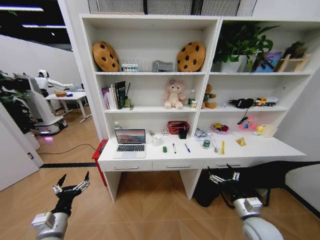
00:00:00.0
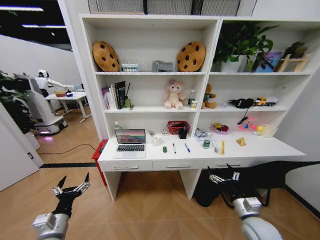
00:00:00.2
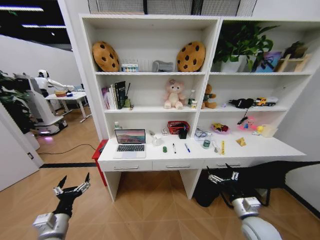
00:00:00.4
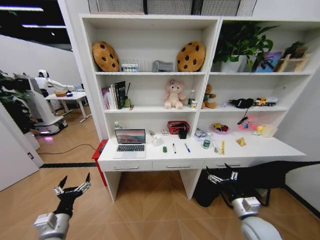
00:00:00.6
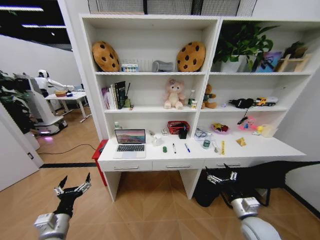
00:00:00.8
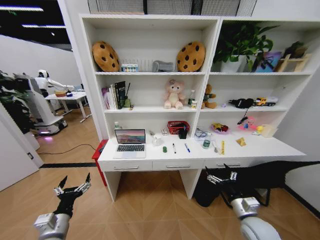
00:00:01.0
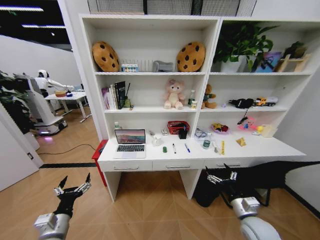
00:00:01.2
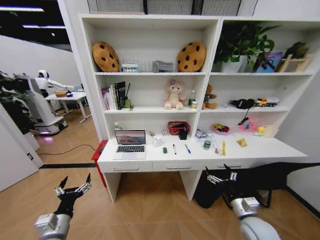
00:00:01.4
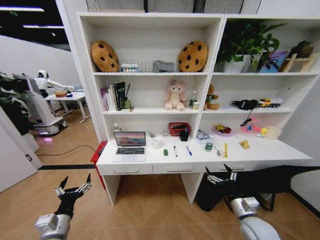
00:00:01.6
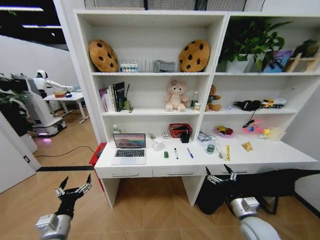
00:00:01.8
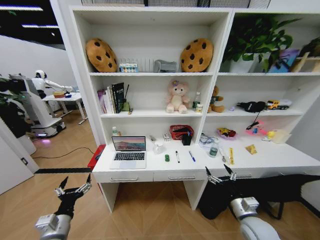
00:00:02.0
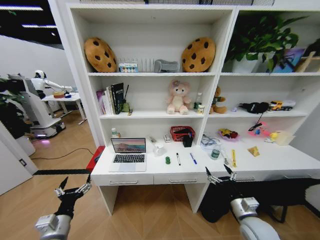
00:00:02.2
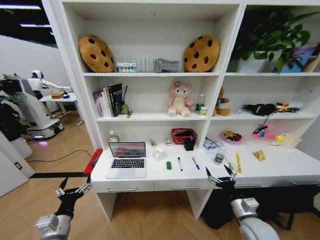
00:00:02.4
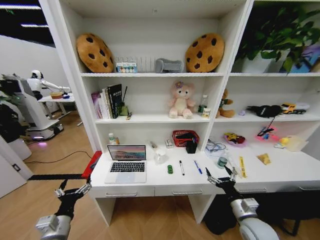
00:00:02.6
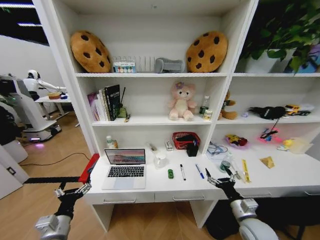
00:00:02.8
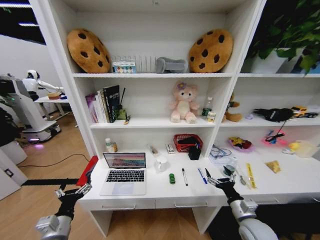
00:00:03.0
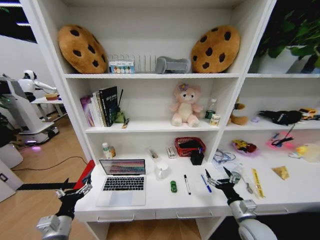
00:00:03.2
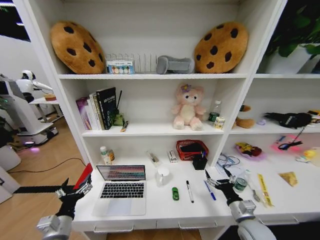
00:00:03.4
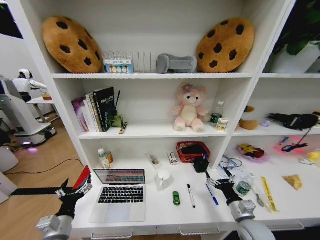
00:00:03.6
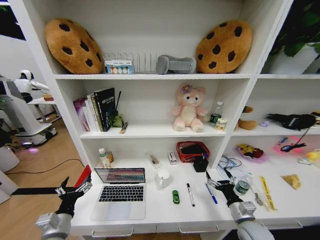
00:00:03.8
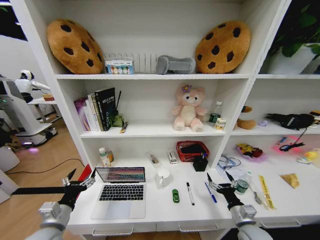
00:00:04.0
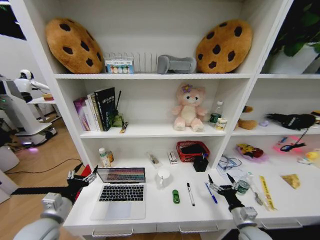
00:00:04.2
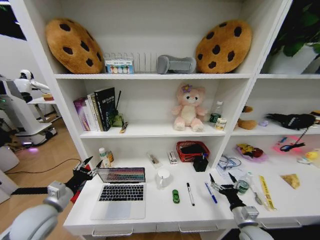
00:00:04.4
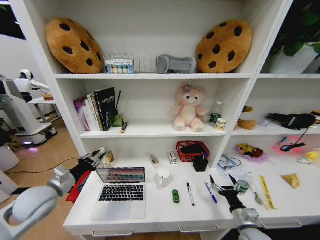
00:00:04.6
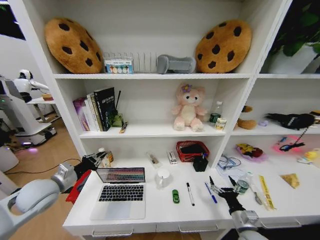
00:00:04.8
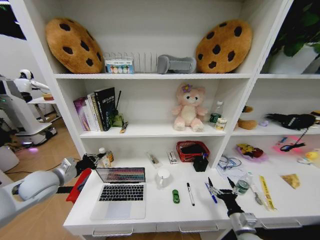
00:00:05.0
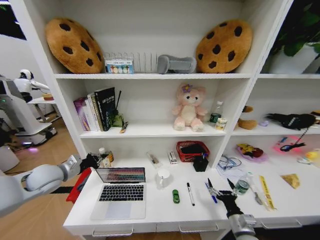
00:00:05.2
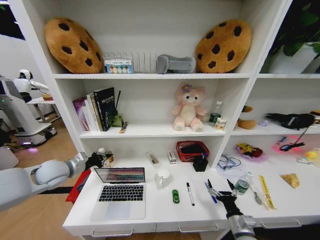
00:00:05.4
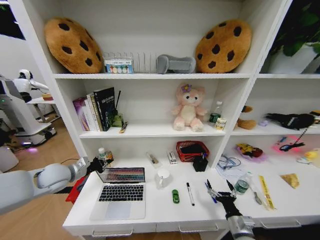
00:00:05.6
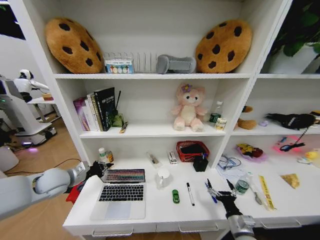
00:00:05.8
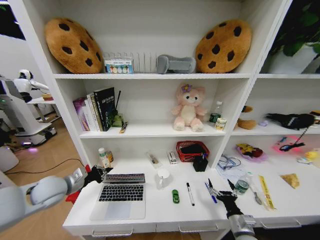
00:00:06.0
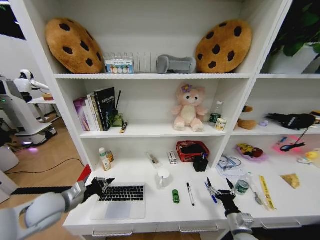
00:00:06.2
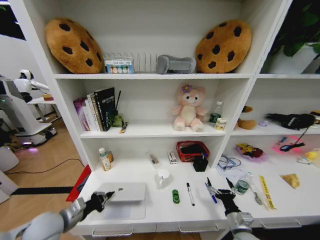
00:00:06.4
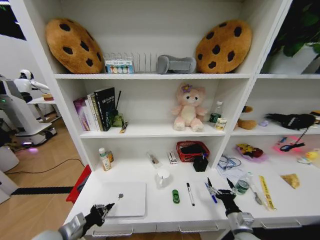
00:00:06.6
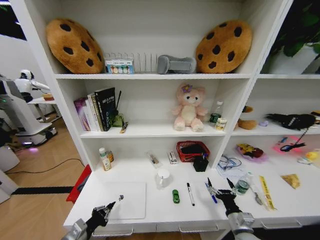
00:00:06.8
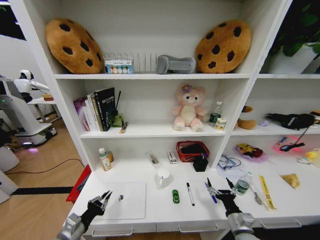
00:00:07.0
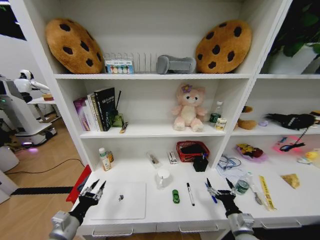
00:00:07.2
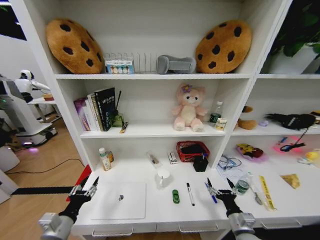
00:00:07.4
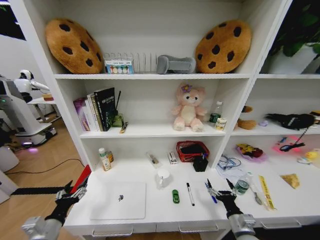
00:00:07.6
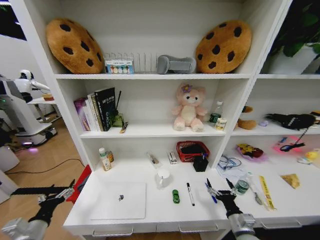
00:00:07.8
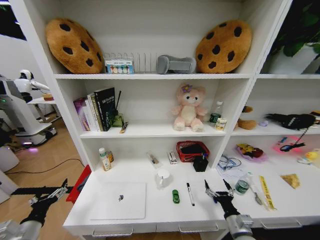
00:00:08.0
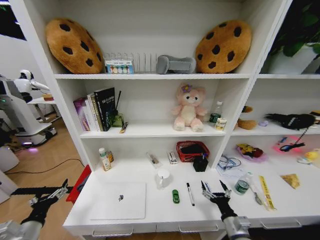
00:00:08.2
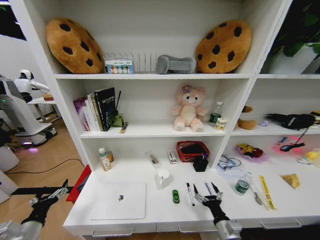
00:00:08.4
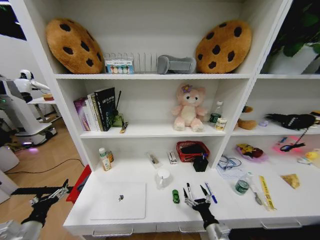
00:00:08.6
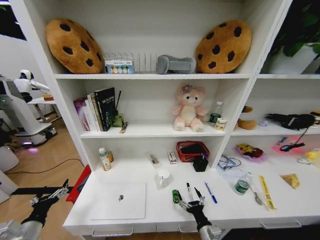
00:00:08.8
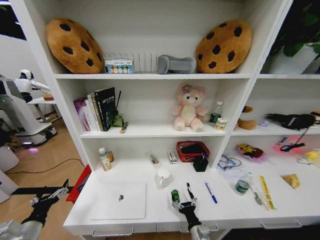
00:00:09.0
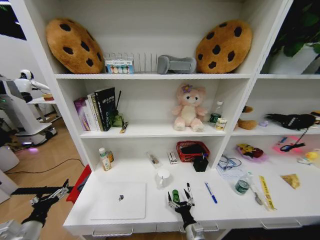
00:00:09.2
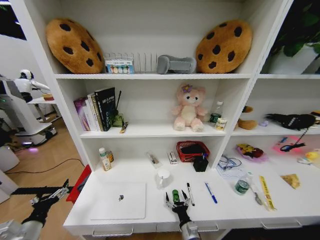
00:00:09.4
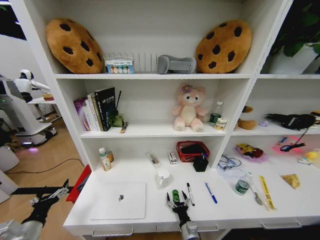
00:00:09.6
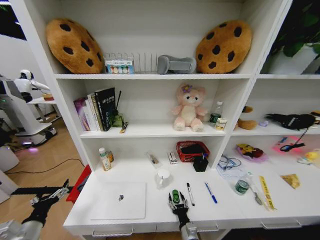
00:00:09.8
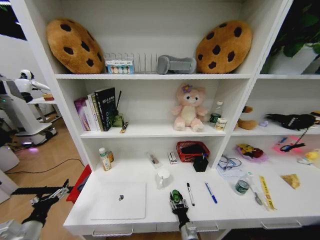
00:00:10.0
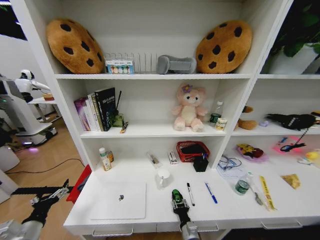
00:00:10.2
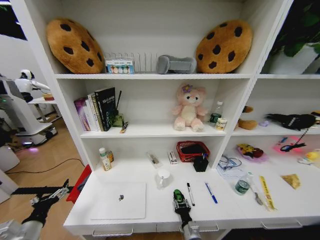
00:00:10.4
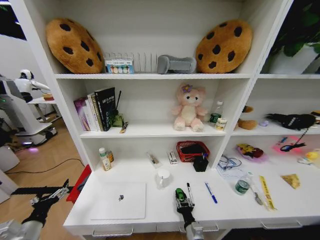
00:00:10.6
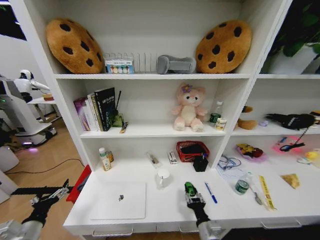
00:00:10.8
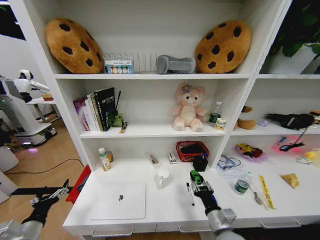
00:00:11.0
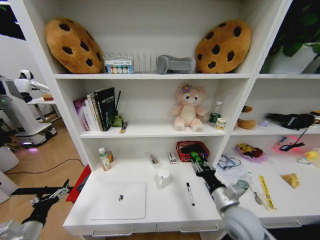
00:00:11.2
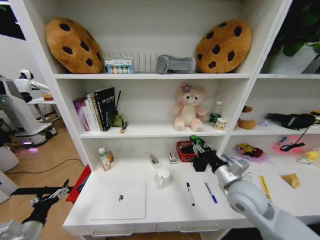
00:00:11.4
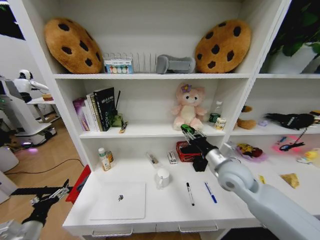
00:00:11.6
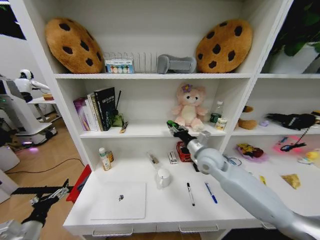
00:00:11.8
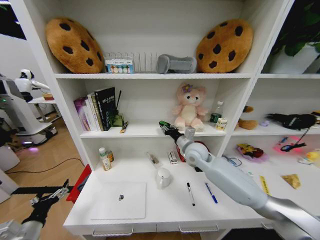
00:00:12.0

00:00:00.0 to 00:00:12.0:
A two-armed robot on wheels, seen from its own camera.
Task of the whole recording: Organize the objects on the table.
00:00:03.0 to 00:00:04.4: The left gripper moves upward and forward, roughly 10 cm, and closes up.
00:00:04.4 to 00:00:06.0: The left gripper travels forward by approximately 5 cm, and closes up.
00:00:06.0 to 00:00:07.6: The left gripper shifts some 20 cm backward and downward, and opens its fingers.
00:00:07.6 to 00:00:09.0: The right gripper travels to the left and downward by roughly 15 cm.
00:00:09.0 to 00:00:10.4: The right gripper moves some 5 cm, and closes.
00:00:10.4 to 00:00:12.0: The right gripper goes some 40 cm upward and forward.

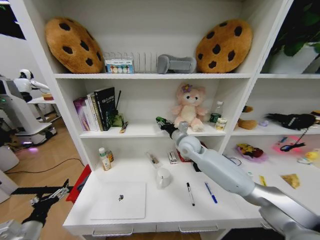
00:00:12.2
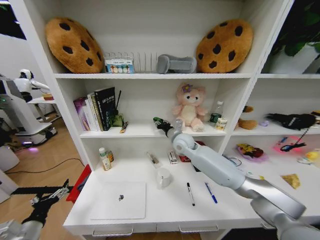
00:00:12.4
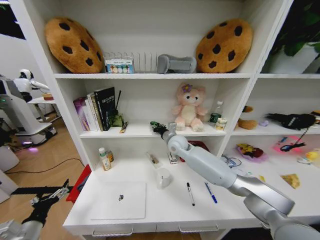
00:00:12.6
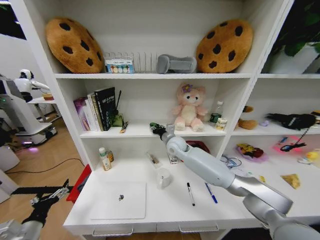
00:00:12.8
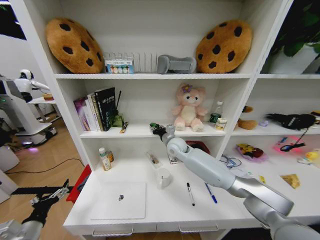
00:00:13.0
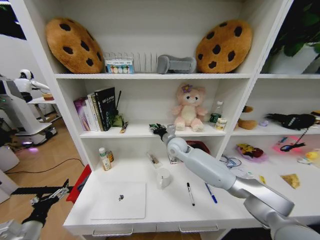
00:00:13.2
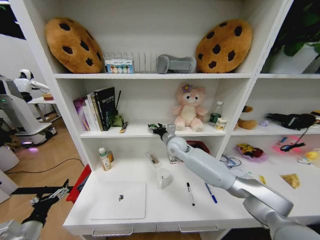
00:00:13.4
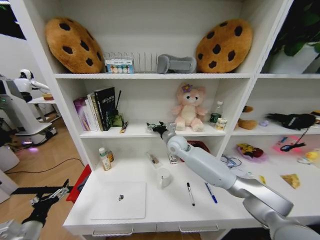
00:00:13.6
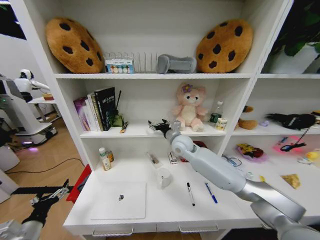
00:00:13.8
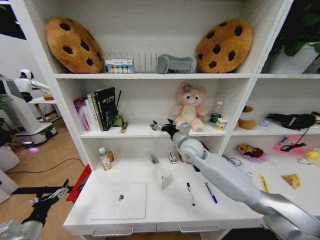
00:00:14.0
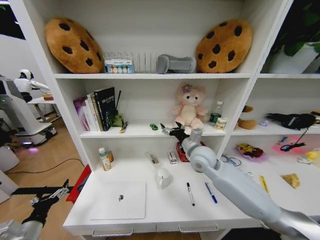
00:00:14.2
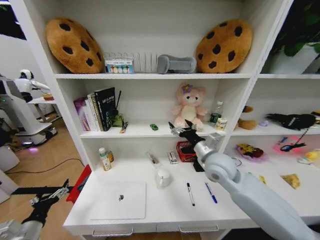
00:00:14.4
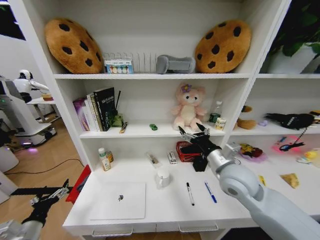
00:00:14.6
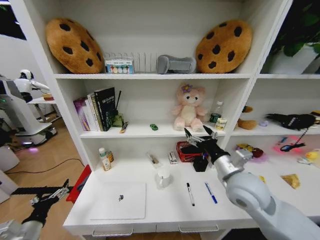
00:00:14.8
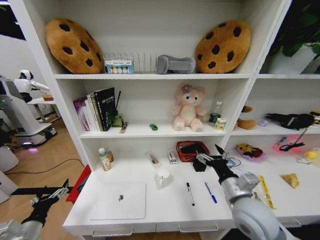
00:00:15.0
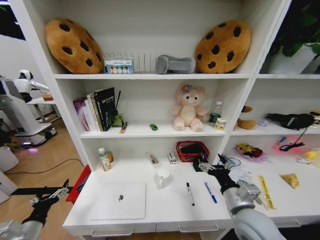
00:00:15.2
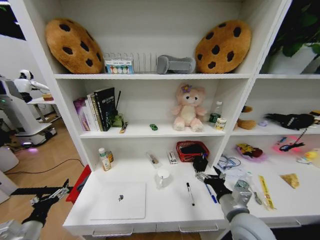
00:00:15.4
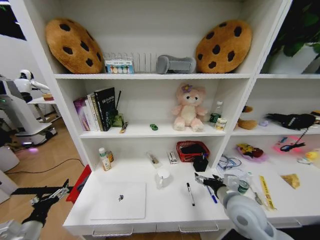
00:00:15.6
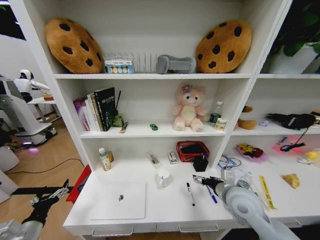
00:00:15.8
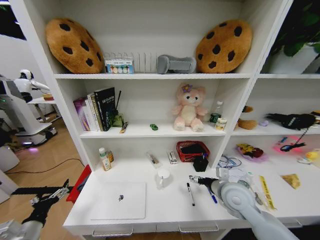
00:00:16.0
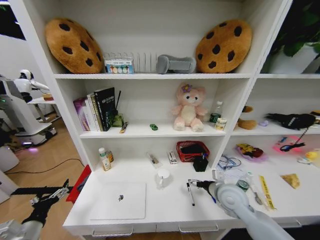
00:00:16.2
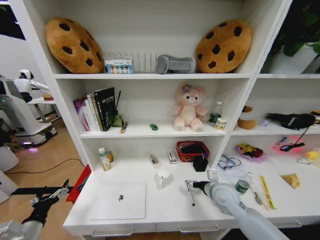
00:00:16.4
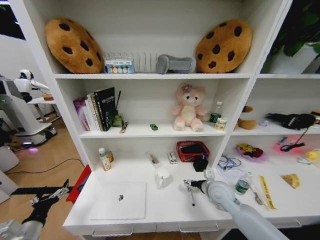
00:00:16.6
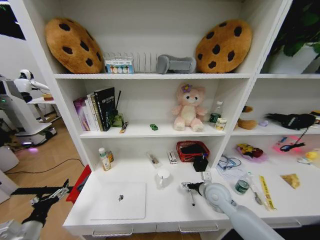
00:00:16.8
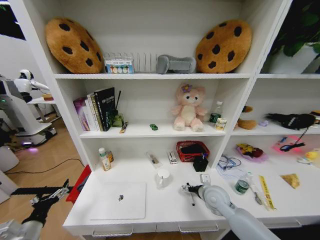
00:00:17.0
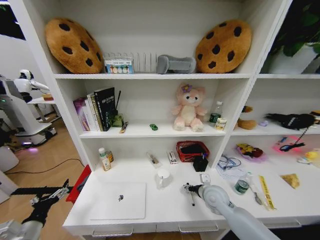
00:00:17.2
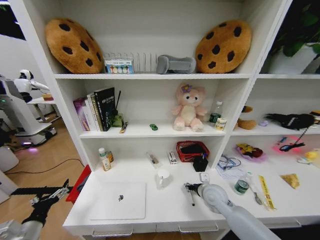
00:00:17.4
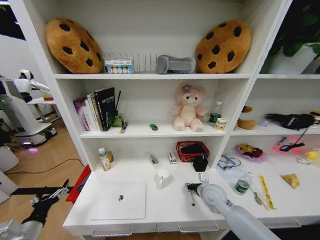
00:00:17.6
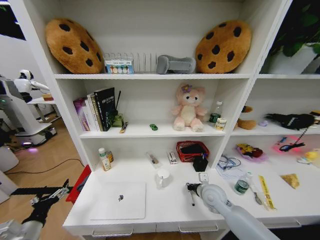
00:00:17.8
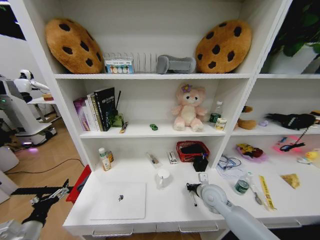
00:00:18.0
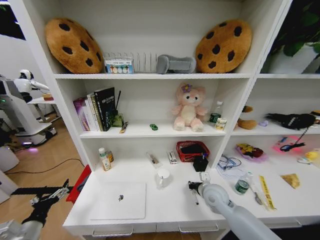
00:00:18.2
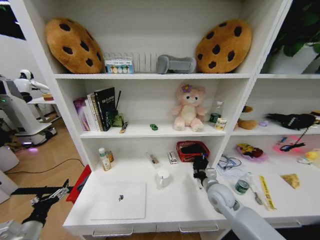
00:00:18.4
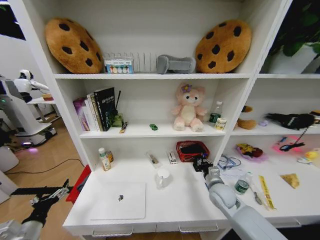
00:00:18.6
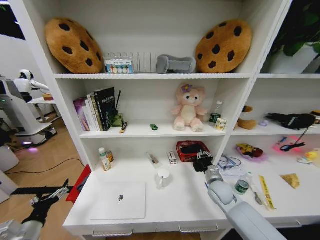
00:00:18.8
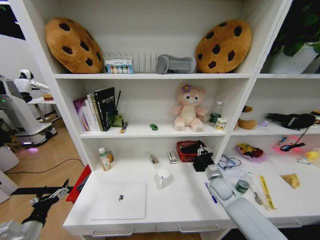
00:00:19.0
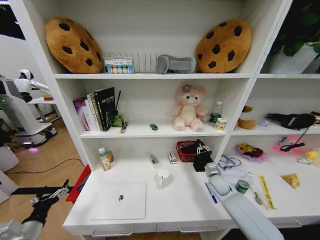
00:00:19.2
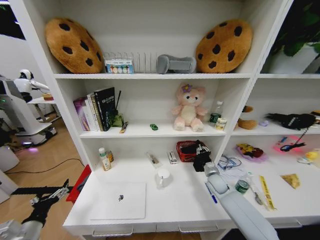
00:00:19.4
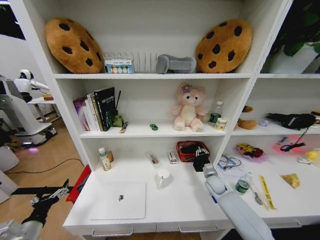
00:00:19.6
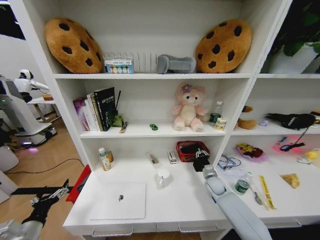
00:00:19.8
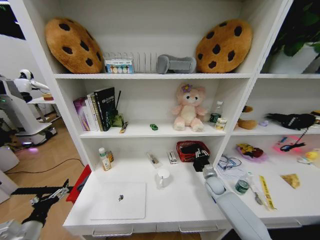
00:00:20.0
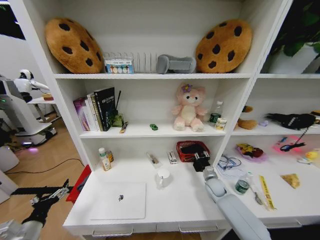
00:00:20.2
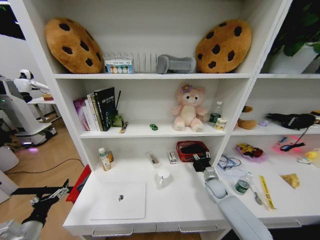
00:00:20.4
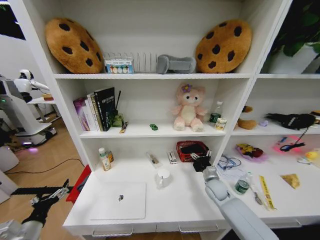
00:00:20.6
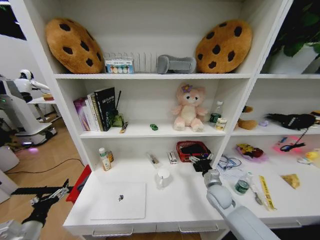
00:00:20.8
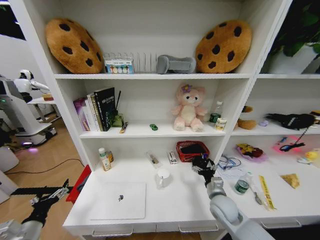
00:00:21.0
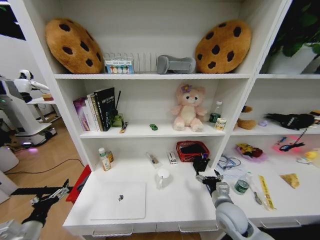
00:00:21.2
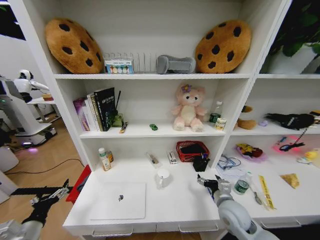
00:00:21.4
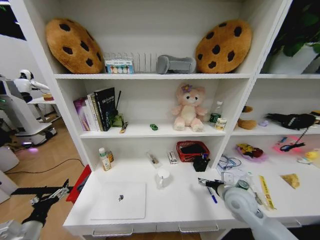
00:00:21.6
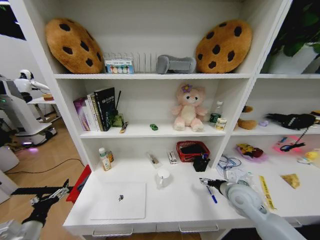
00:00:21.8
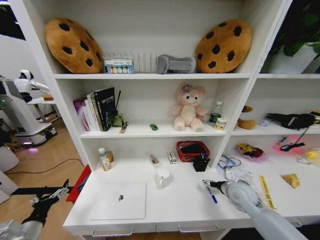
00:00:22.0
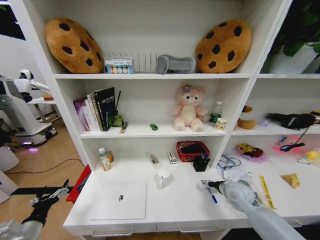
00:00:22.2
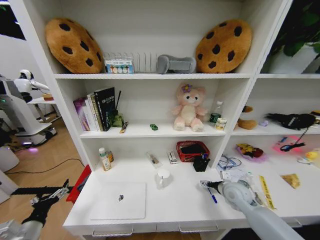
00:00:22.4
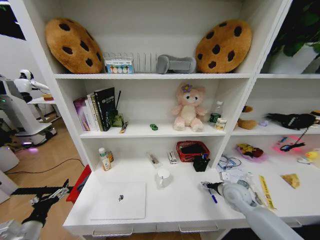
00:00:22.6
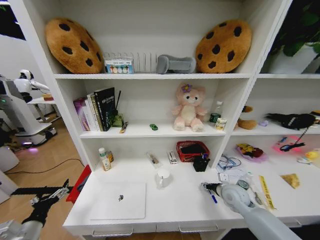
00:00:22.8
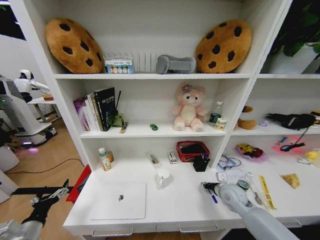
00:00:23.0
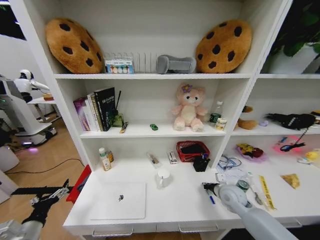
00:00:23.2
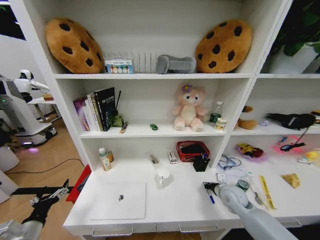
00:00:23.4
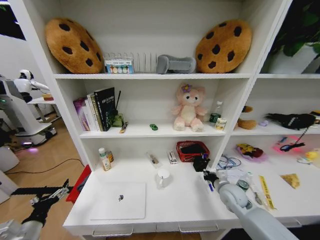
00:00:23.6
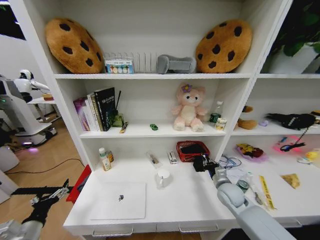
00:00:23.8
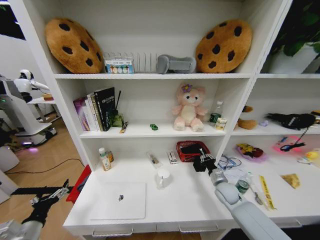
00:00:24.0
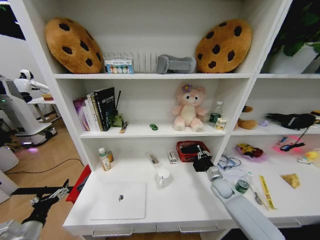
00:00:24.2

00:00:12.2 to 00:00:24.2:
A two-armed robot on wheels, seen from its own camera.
Task of the whole recording: Organize the objects on the table.
00:00:12.2 to 00:00:13.8: The right gripper opens its fingers.
00:00:13.8 to 00:00:15.2: The right gripper shifts approximately 30 cm backward and to the right.
00:00:15.2 to 00:00:16.6: The right gripper travels forward and downward by approximately 15 cm.
00:00:16.6 to 00:00:18.2: The right gripper closes.
00:00:18.2 to 00:00:19.8: The right gripper shifts some 15 cm downward, forward and to the right.
00:00:19.8 to 00:00:21.2: The right gripper goes approximately 20 cm backward and upward, and opens.
00:00:21.2 to 00:00:22.6: The right gripper is displaced to the right and forward by some 10 cm.
00:00:22.6 to 00:00:24.2: The right gripper moves downward and forward, some 10 cm, and closes its fingers.
